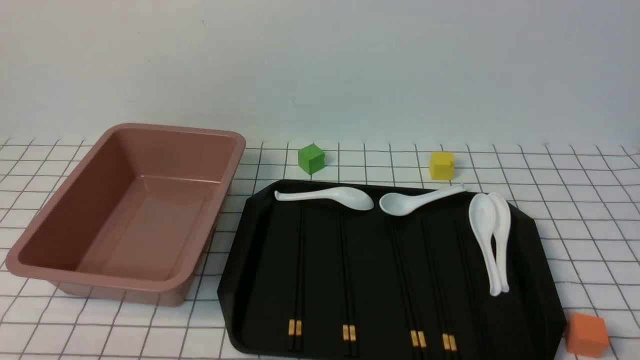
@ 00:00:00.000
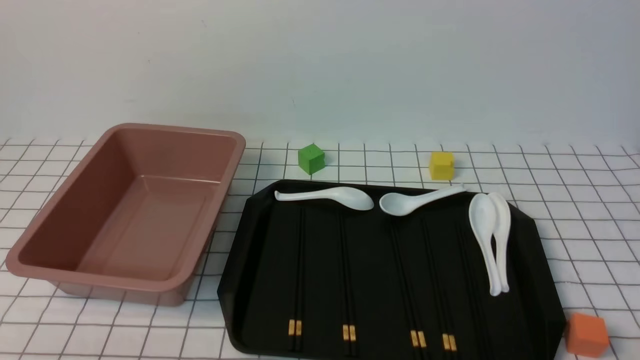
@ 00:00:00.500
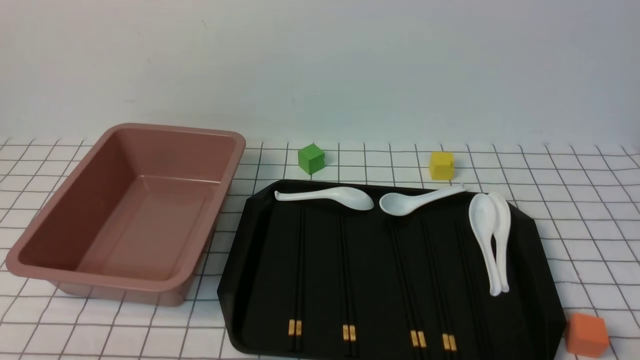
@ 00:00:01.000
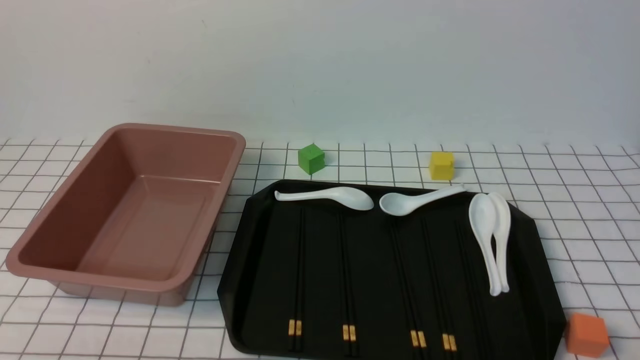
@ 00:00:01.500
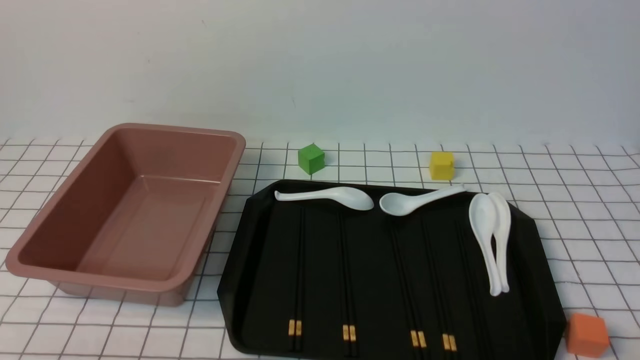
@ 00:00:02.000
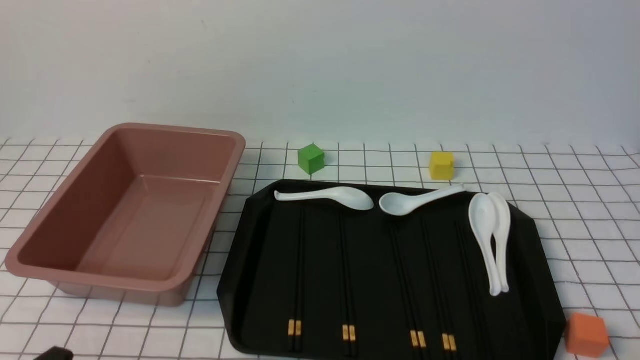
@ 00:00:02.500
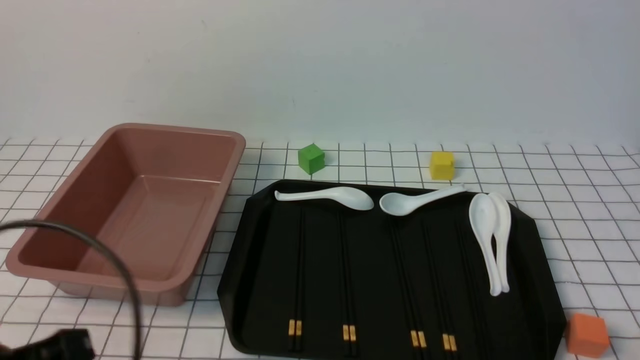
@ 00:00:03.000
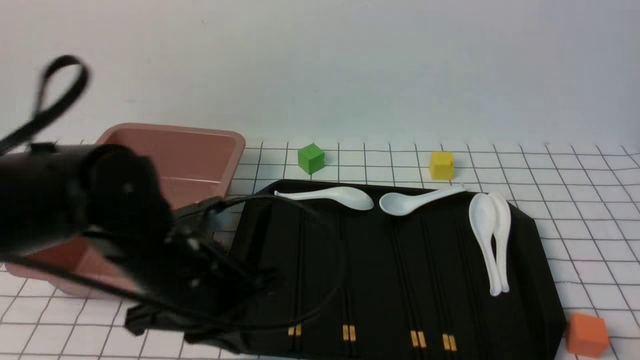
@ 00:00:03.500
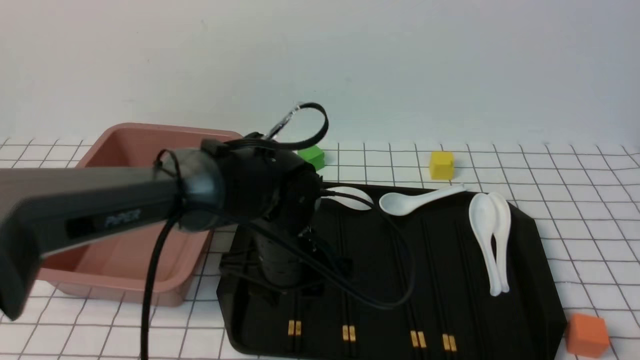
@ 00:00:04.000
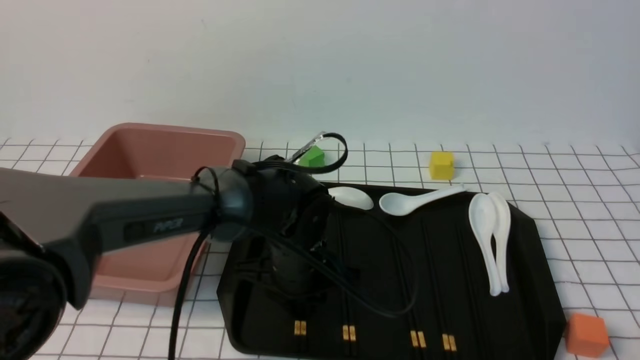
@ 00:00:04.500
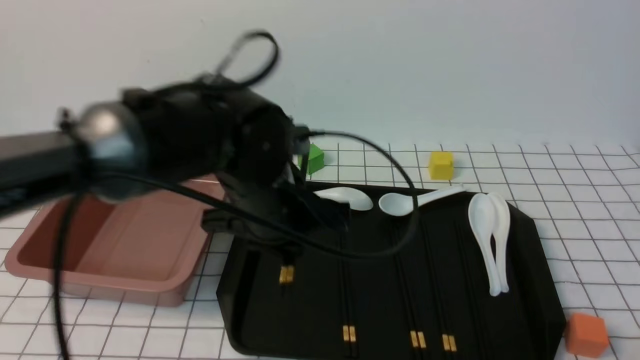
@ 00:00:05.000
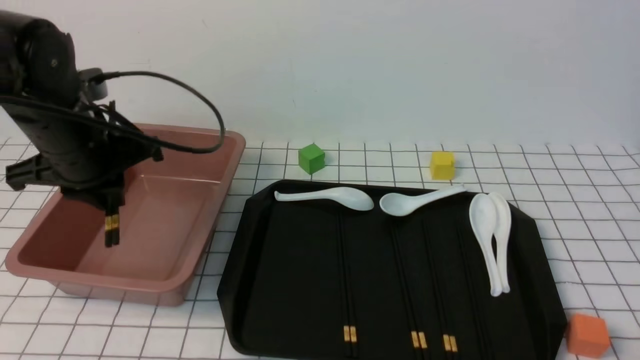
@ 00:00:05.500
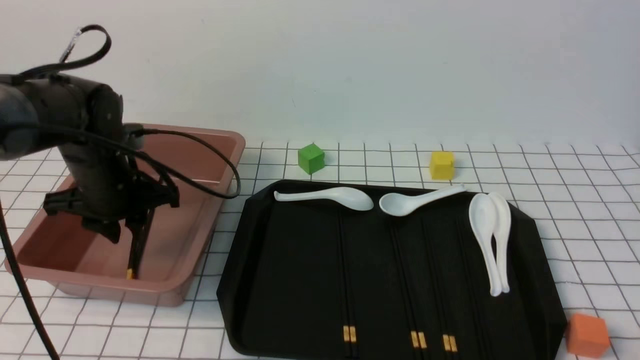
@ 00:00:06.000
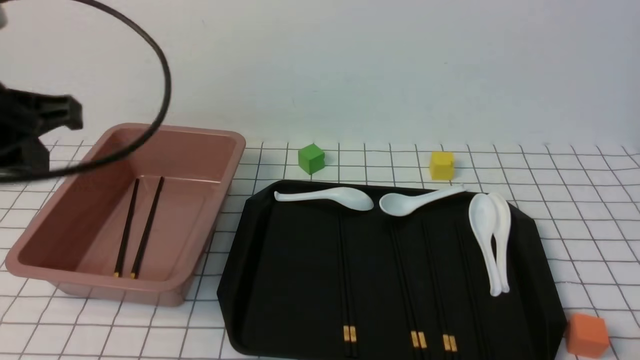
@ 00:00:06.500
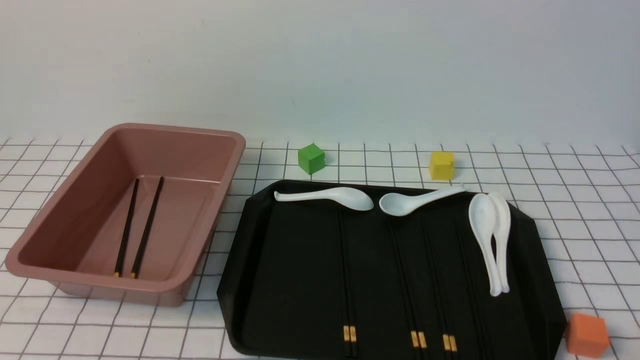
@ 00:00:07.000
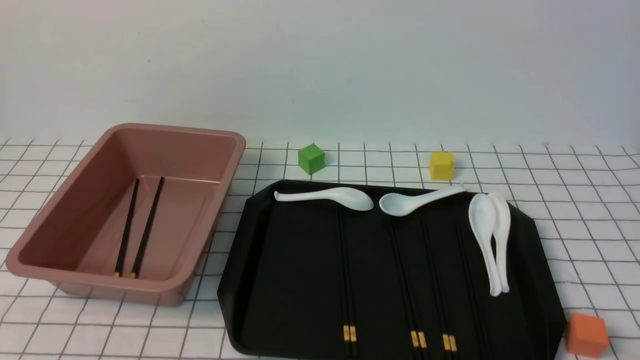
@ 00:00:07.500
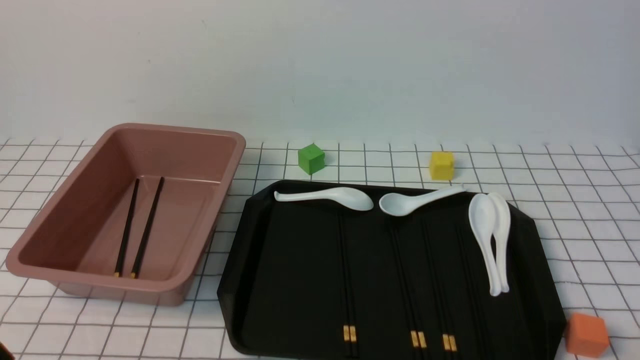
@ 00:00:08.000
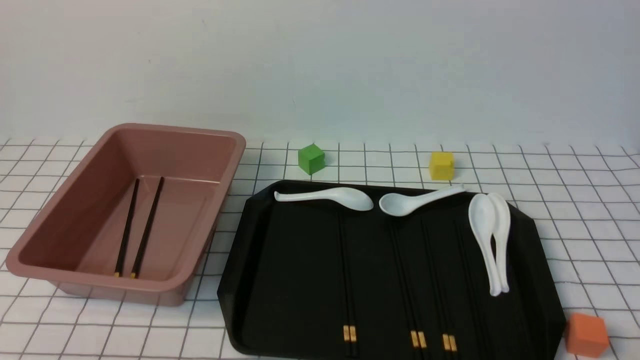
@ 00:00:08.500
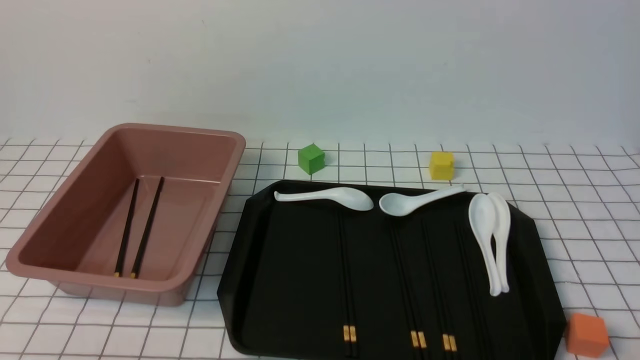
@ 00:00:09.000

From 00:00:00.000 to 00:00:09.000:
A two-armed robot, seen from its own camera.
Step, from 00:00:00.000 to 00:00:04.500: use the left arm to grab a pair of chopsticks.
Step, from 00:00:05.000 to 00:00:06.000: use the left arm to put the chopsticks into the lunch box.
From 00:00:02.000 to 00:00:04.500: The left gripper shifts some 35 cm forward and to the right, and closes, then opens again.
From 00:00:04.500 to 00:00:07.000: The left gripper shifts roughly 40 cm backward, to the left and upward, and closes up.

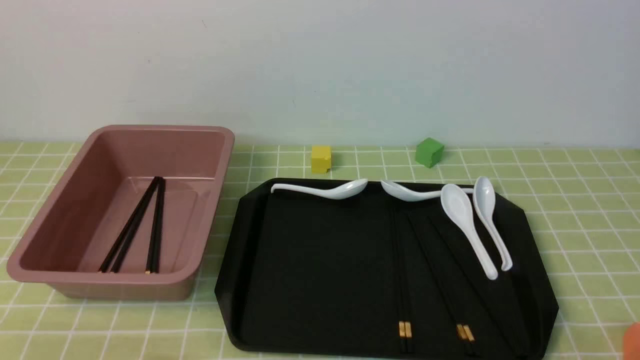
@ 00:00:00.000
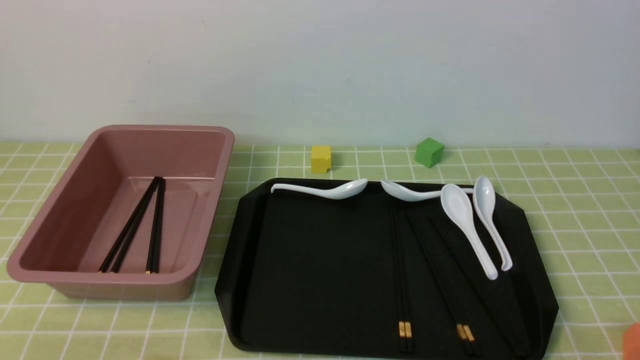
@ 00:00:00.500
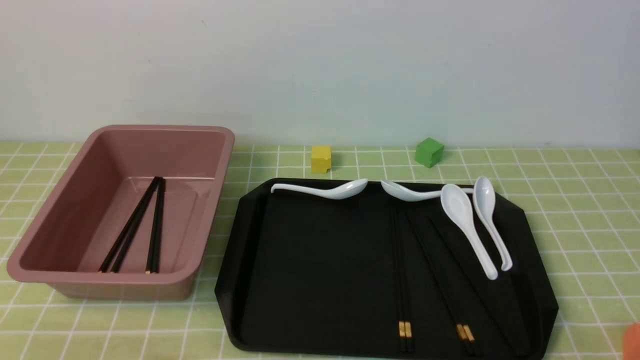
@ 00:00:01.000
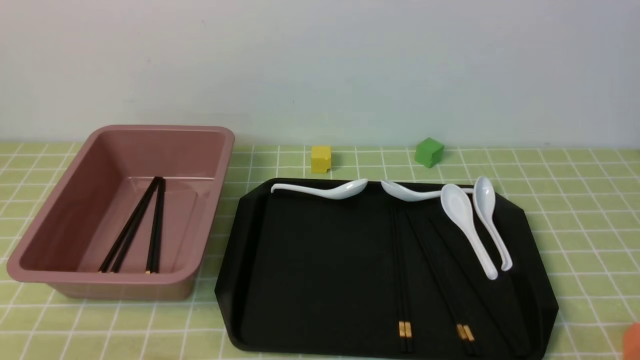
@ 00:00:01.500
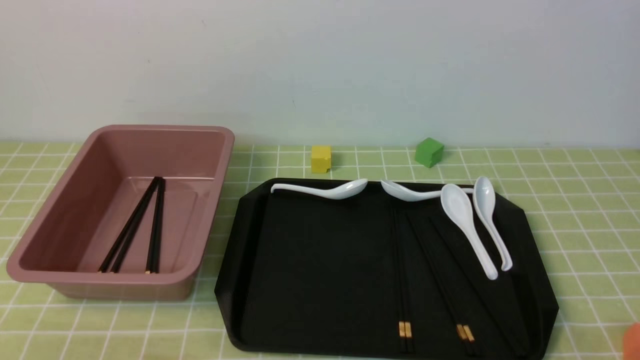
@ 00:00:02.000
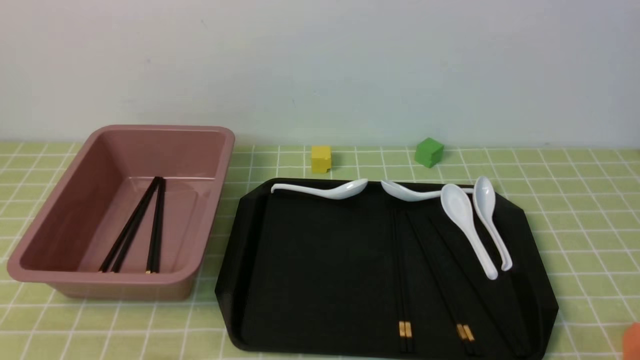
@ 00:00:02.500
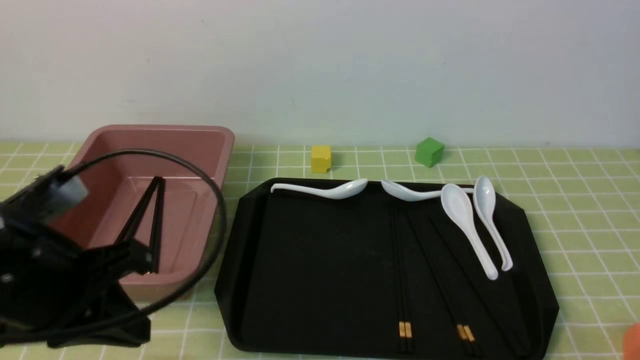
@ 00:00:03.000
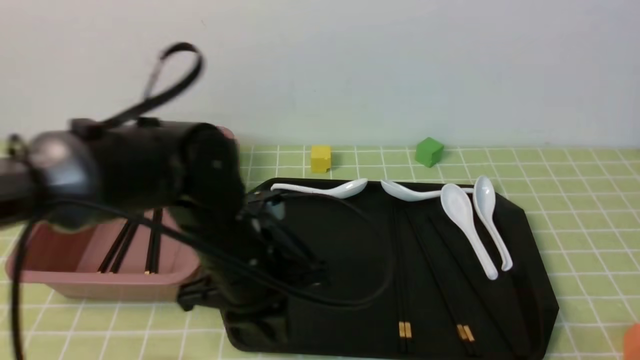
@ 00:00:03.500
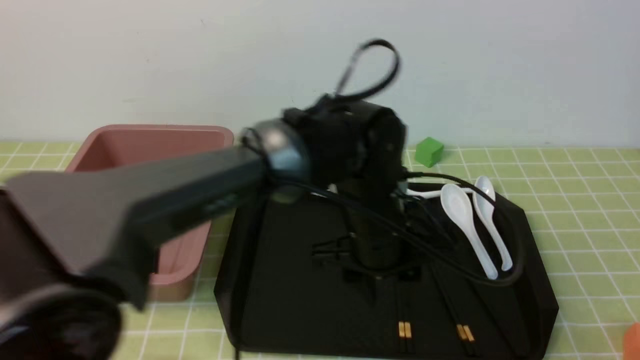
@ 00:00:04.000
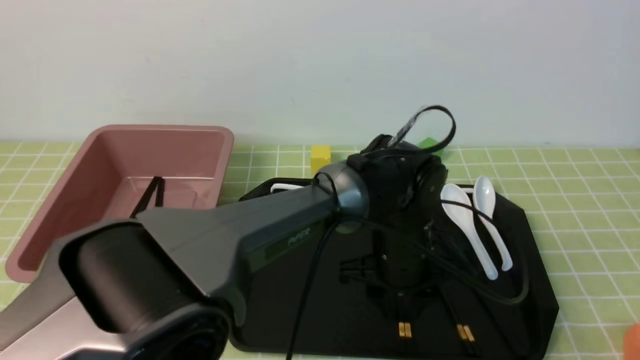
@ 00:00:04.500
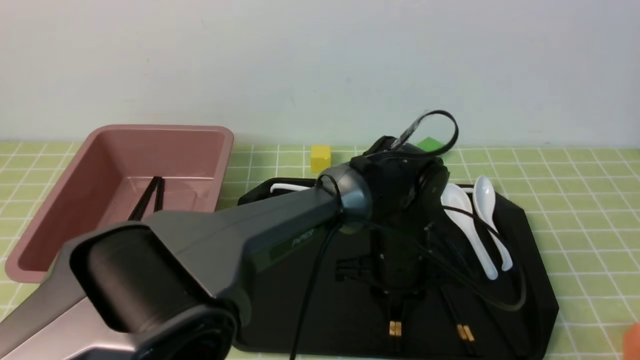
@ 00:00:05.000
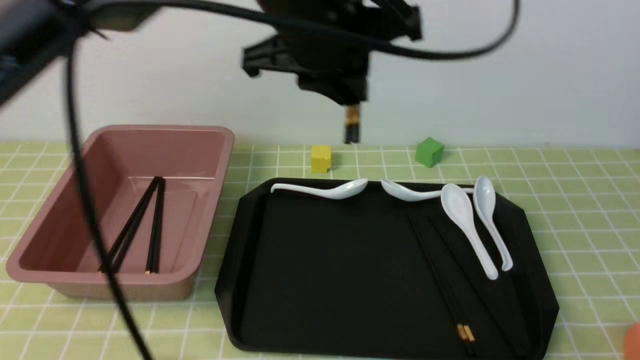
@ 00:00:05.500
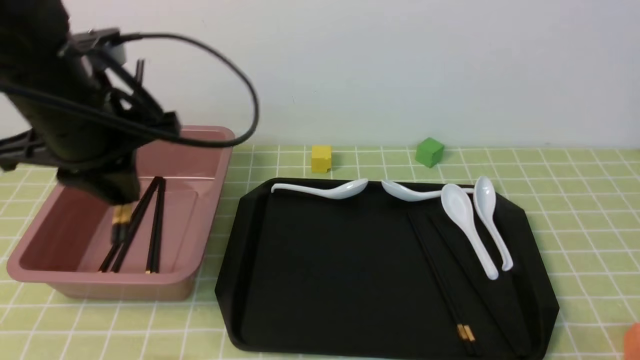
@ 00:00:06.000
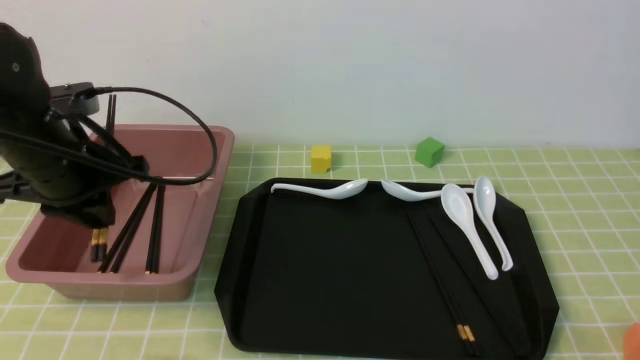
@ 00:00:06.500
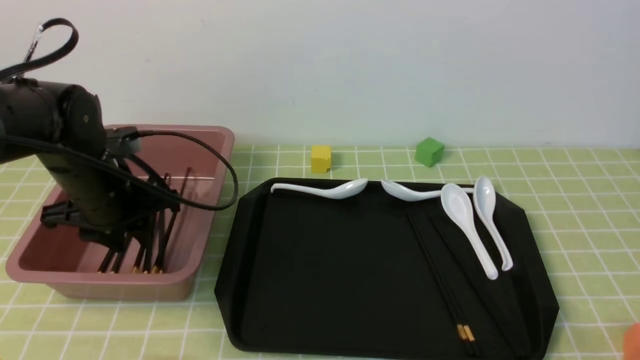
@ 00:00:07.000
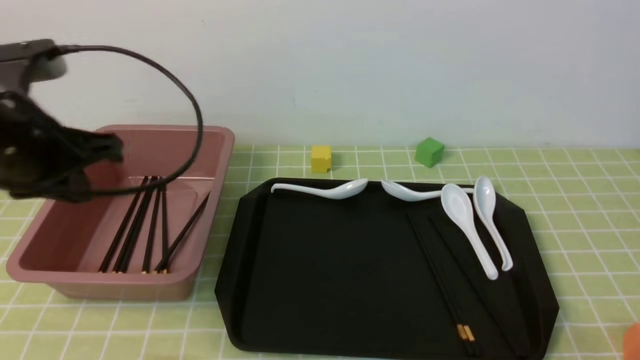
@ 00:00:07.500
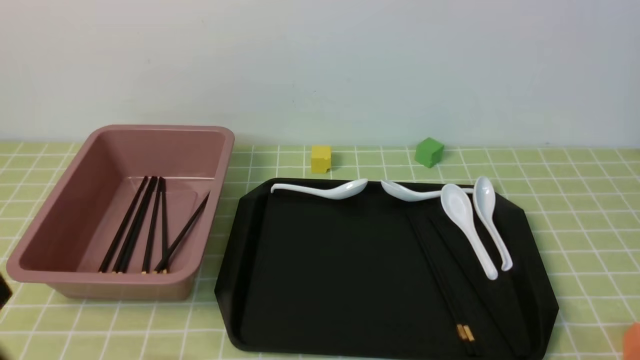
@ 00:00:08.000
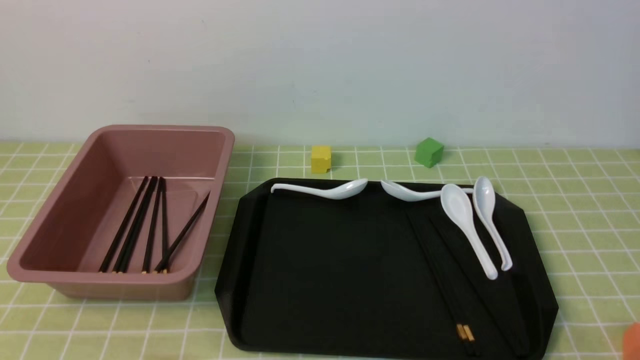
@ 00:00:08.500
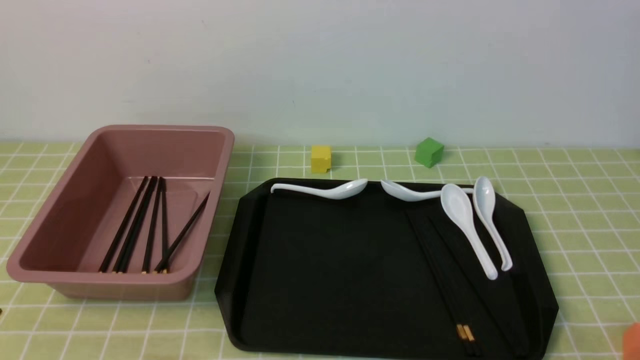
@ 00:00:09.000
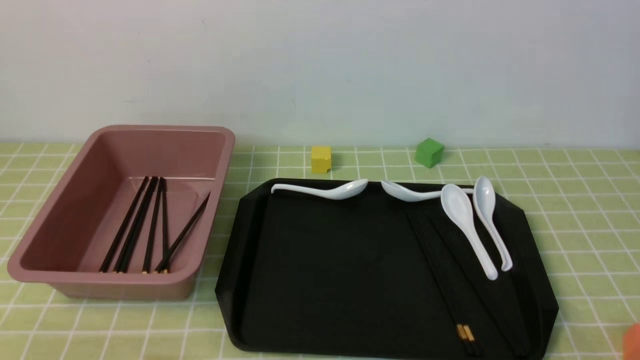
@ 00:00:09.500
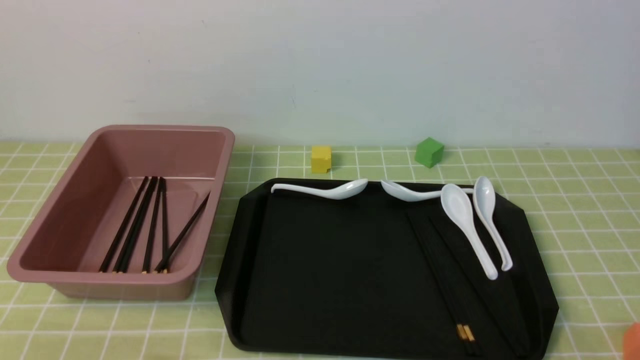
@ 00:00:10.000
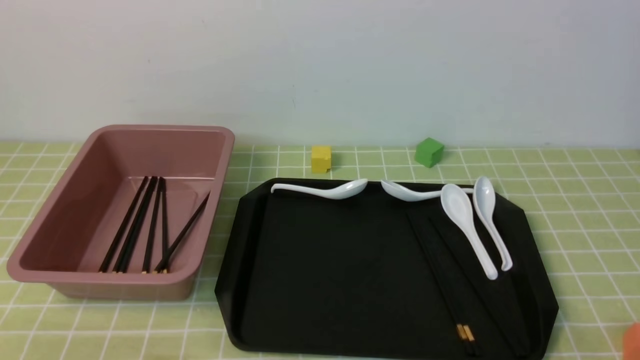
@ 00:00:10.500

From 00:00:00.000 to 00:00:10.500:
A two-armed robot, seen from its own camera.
Step, from 00:00:00.000 to 00:00:05.000: use the left arm to grab a pair of chopsticks.
Step, from 00:00:05.500 to 00:00:07.000: use the left arm to put the chopsticks into the lunch box.
From 00:00:02.000 to 00:00:04.000: The left gripper is displaced to the right and forward by roughly 40 cm, and opens its fingers.
From 00:00:04.000 to 00:00:06.500: The left gripper shifts approximately 25 cm to the left, and closes its fingers.
From 00:00:06.500 to 00:00:08.500: The left gripper shifts approximately 25 cm backward, and closes its fingers.
